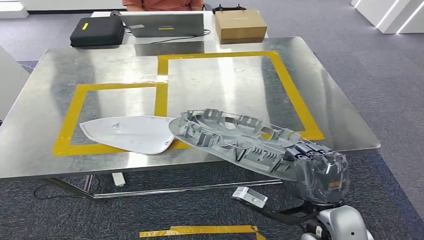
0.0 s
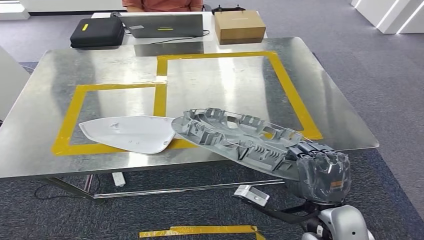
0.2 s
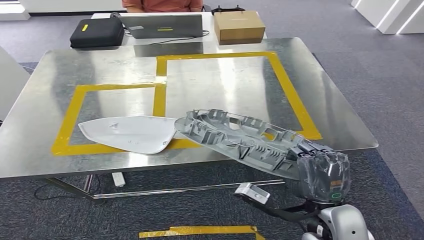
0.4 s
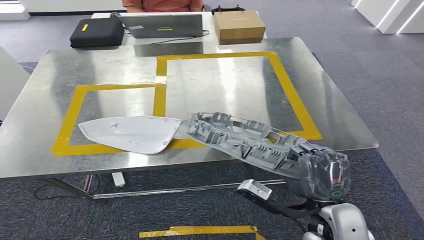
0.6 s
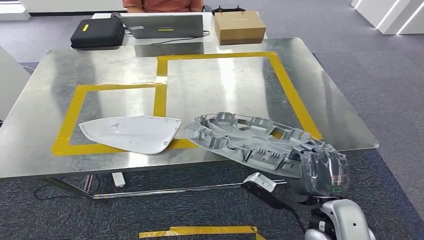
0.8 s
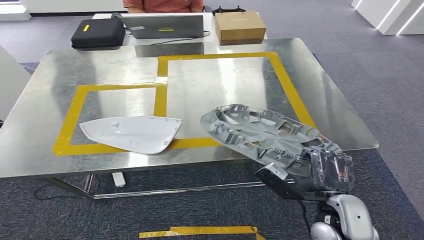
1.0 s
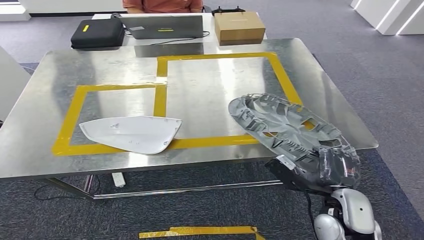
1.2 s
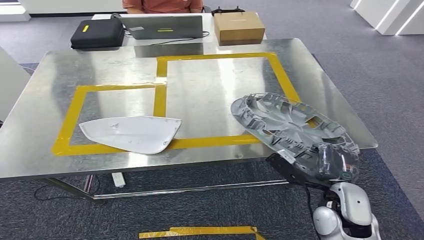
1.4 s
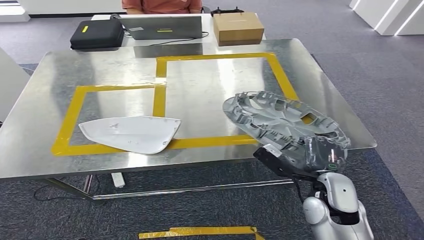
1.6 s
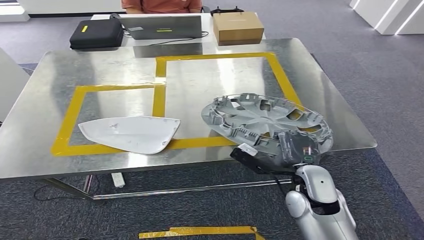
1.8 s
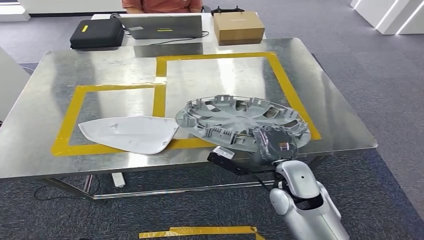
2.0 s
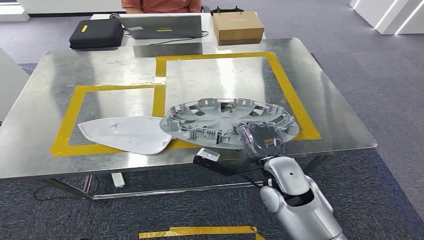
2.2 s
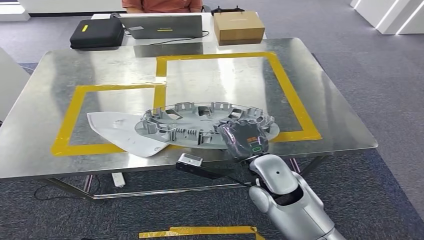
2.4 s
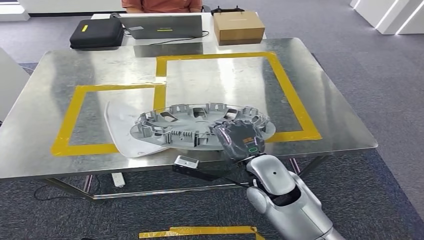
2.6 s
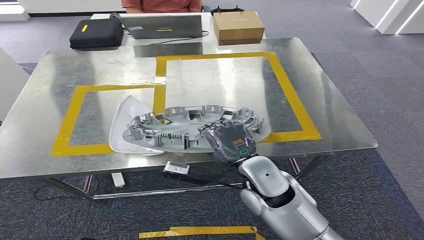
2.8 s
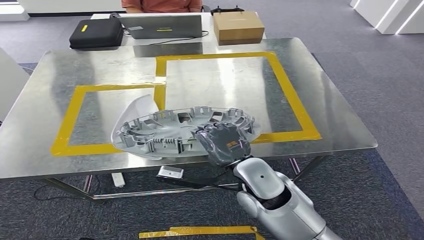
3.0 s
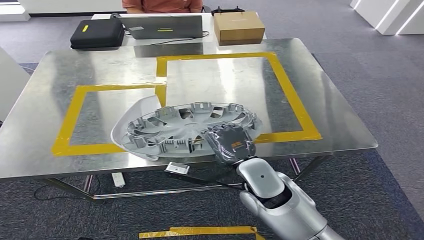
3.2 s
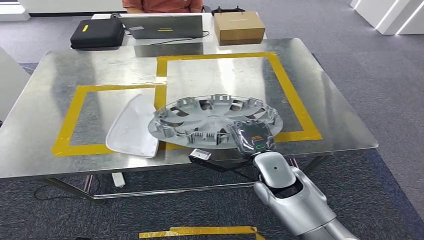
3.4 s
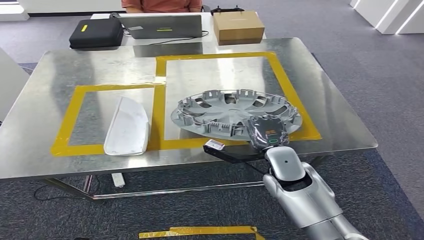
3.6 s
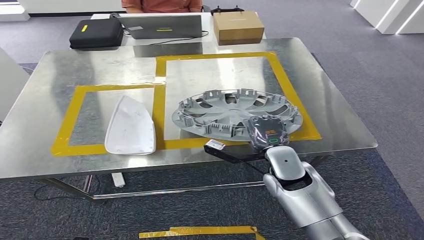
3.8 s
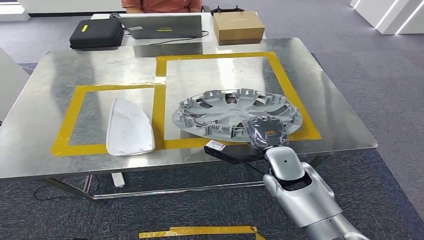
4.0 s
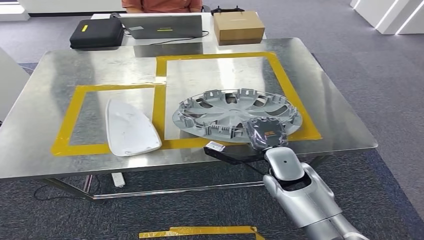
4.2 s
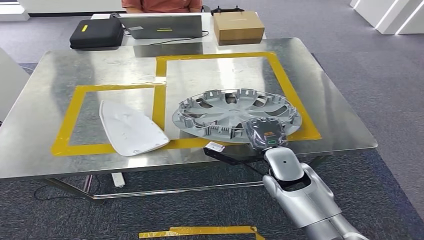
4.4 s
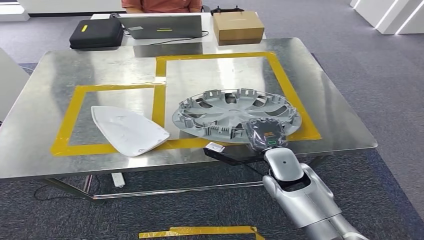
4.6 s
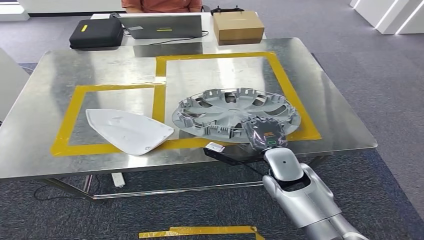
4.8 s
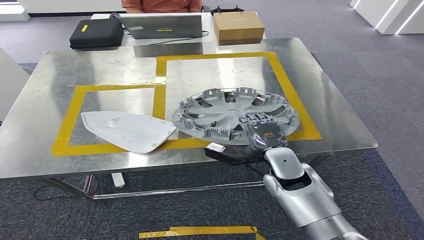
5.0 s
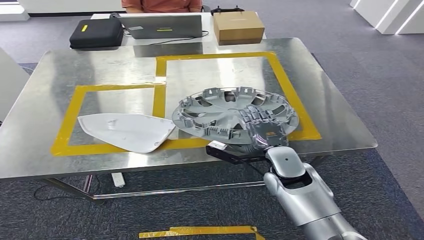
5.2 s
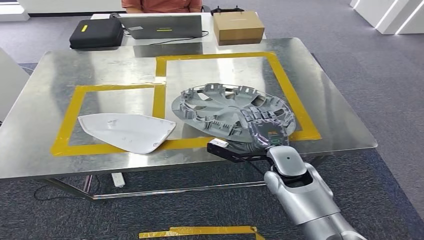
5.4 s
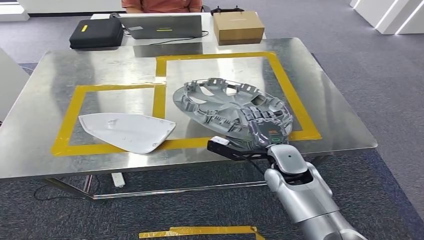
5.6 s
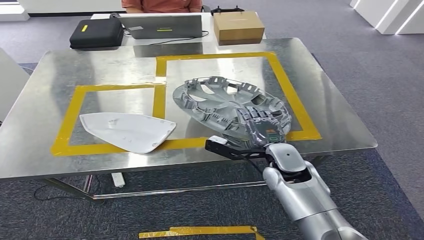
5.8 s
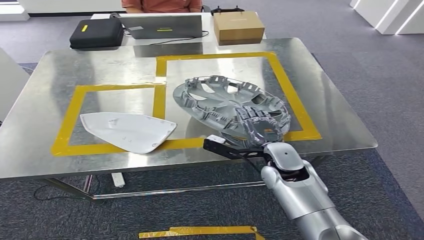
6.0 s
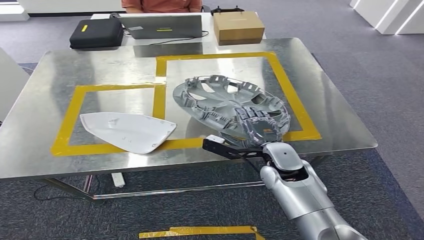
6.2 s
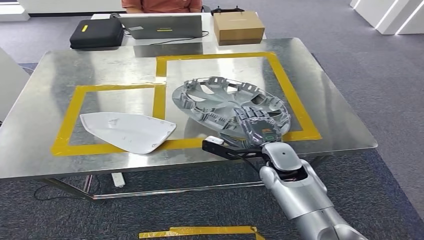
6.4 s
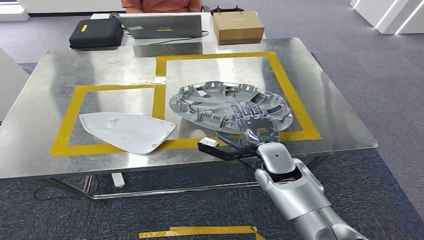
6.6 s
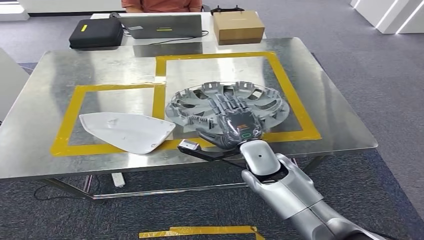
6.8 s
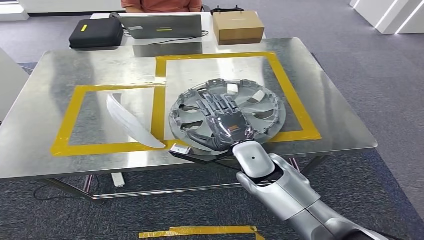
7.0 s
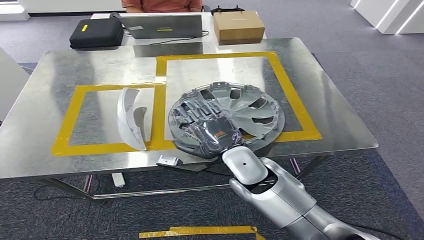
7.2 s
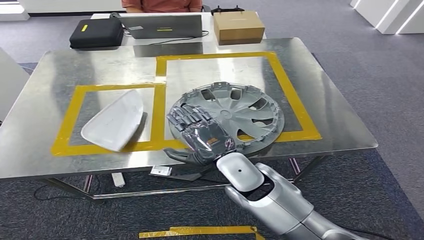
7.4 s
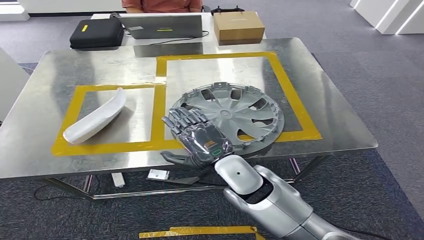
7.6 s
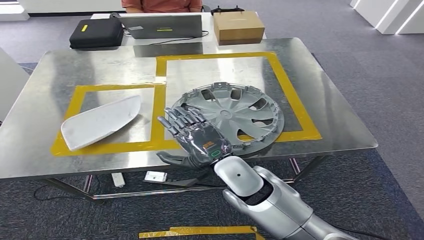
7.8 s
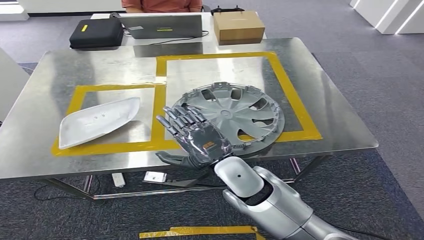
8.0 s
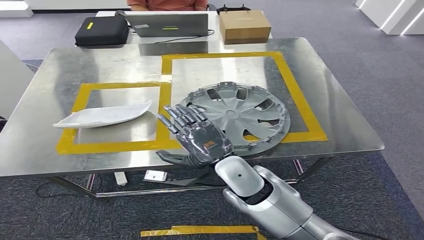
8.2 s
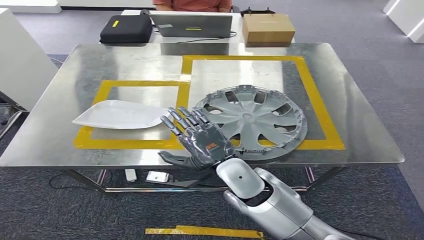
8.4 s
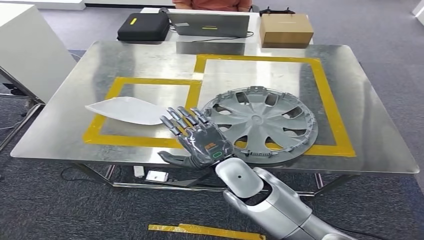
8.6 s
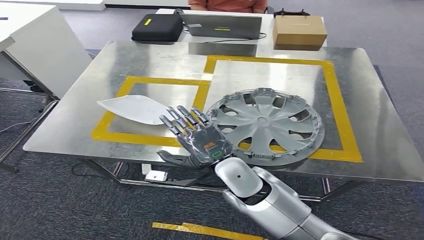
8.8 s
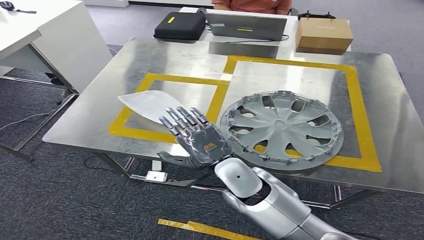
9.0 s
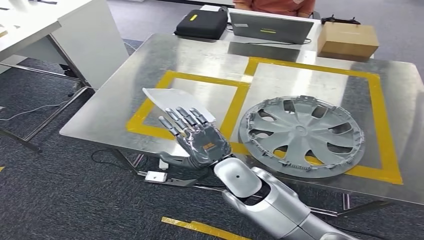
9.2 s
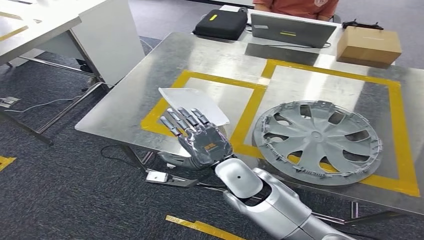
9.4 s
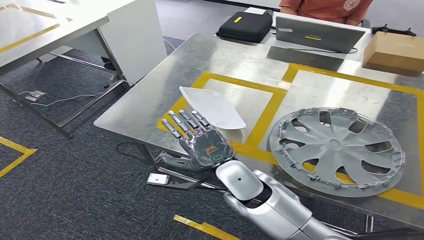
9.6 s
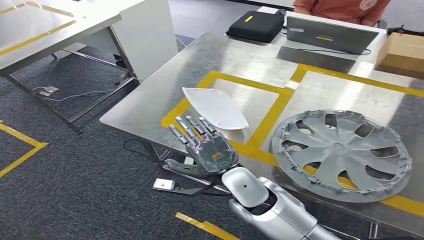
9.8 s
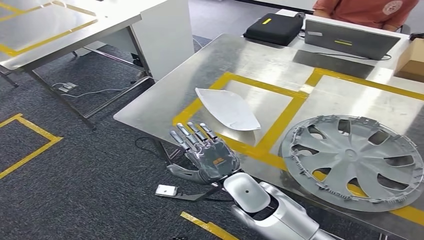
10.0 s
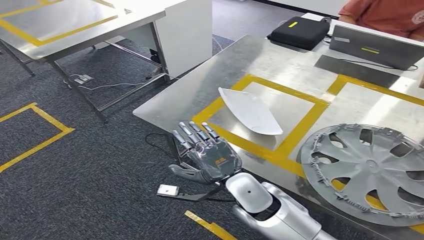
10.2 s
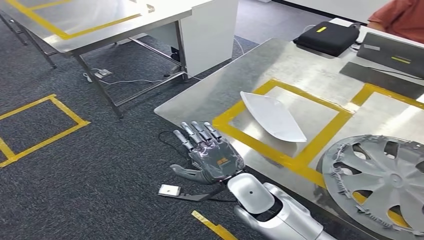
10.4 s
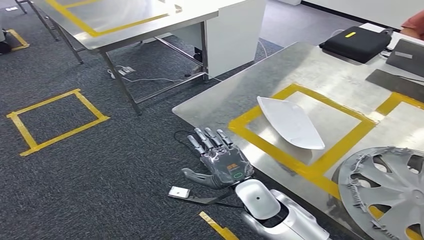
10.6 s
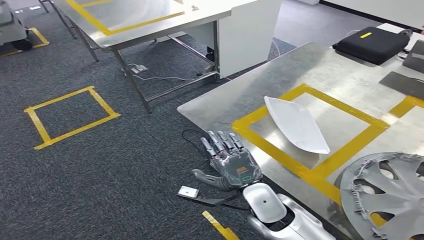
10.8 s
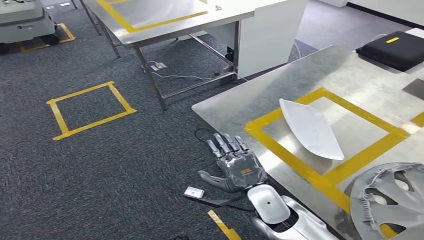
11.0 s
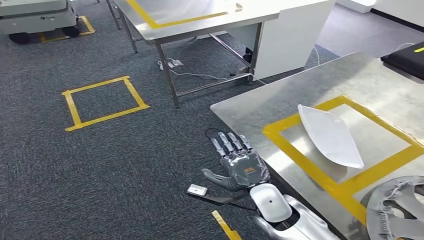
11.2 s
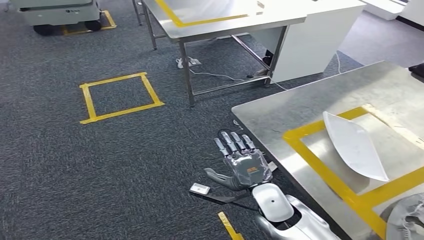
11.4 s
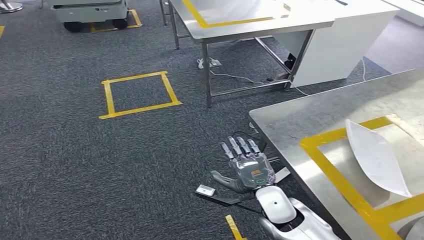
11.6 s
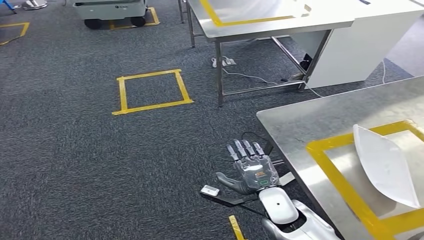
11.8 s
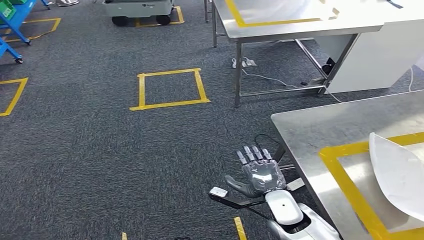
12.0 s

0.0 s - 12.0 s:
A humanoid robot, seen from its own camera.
Step, 0.0 s - 8.0 s: Insert the small parts into the corresponding holes on the workbench.
0.0 s - 1.6 s: The right hand is displaced forward by about 5 cm.
1.6 s - 3.0 s: The right hand is displaced to the left by approximately 15 cm.
3.0 s - 4.4 s: The right hand travels to the right and forward by about 10 cm.
4.4 s - 6.0 s: The hands make only small movements.
6.0 s - 7.6 s: The right hand moves to the left and backward, some 10 cm.

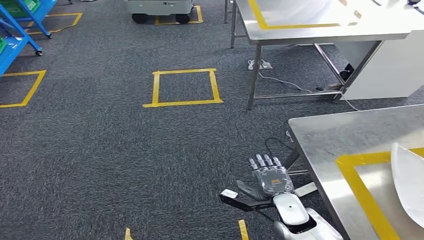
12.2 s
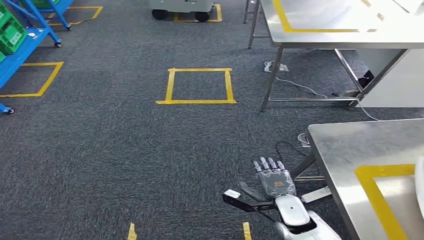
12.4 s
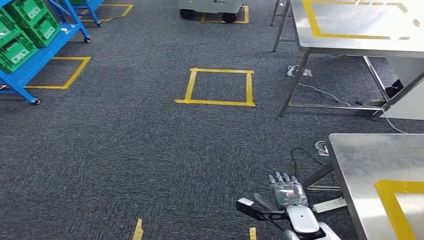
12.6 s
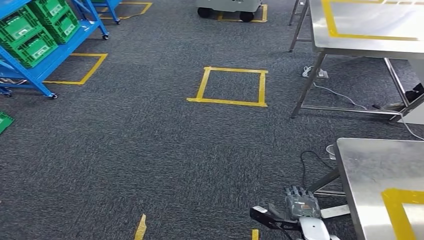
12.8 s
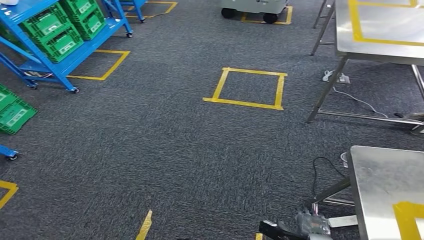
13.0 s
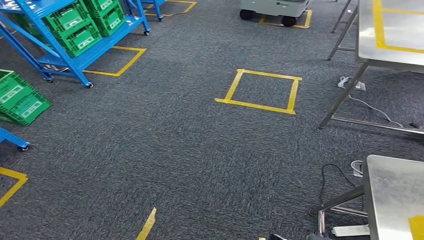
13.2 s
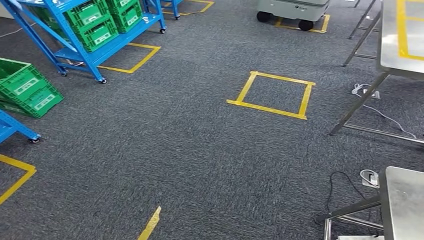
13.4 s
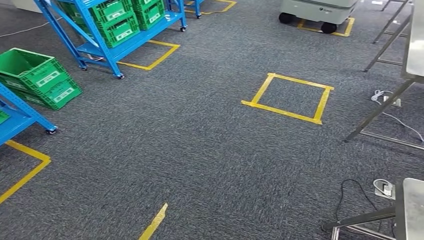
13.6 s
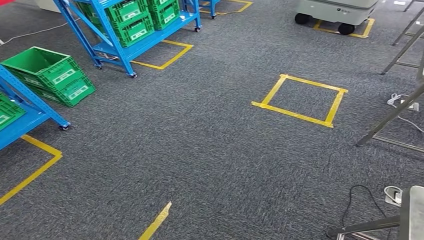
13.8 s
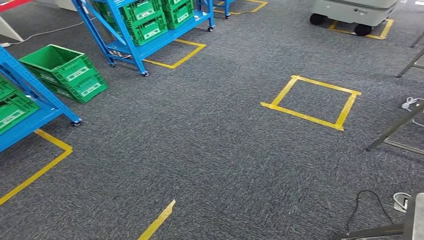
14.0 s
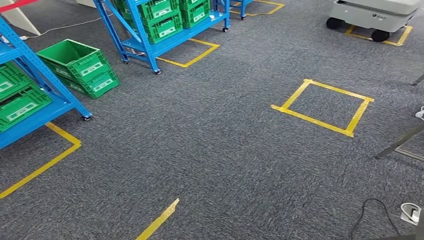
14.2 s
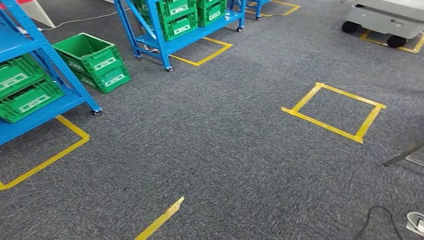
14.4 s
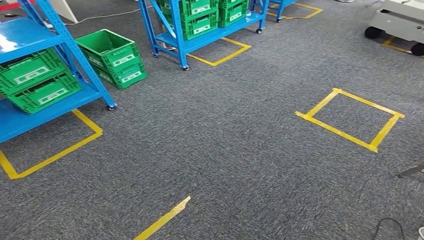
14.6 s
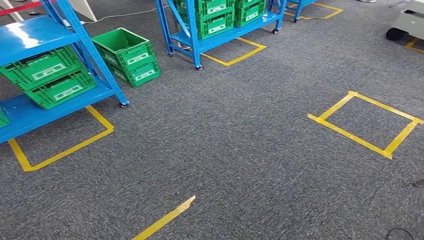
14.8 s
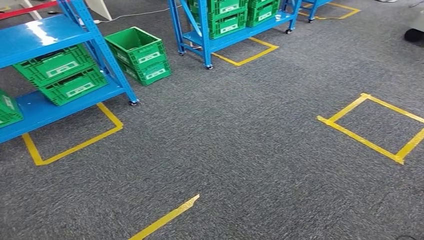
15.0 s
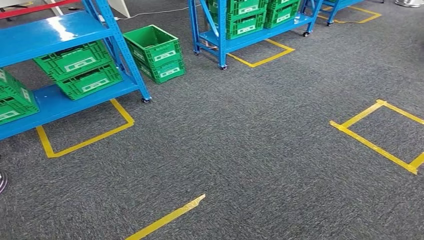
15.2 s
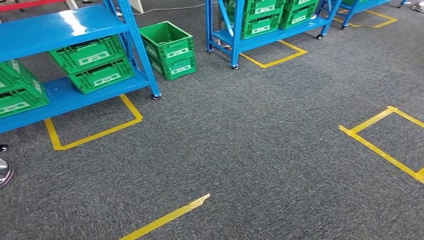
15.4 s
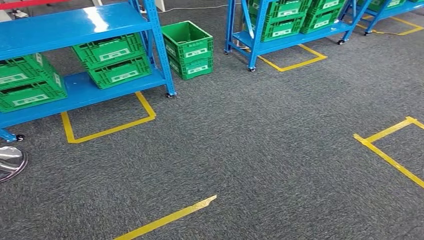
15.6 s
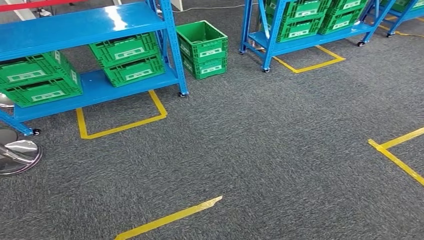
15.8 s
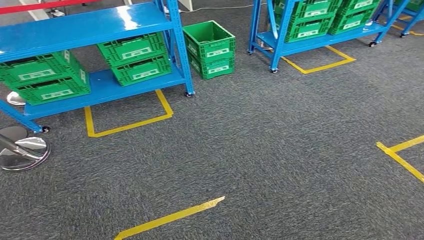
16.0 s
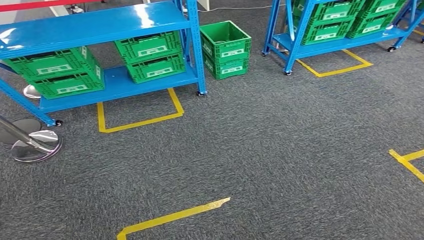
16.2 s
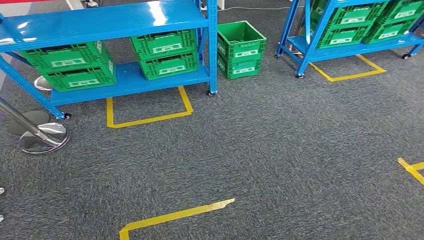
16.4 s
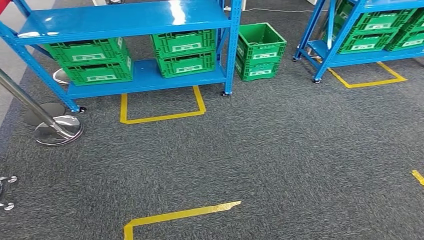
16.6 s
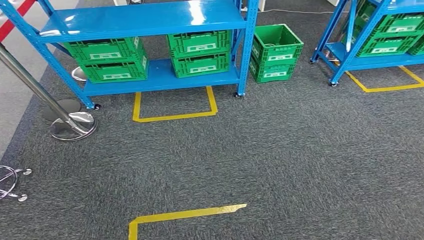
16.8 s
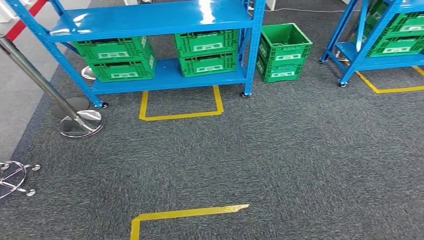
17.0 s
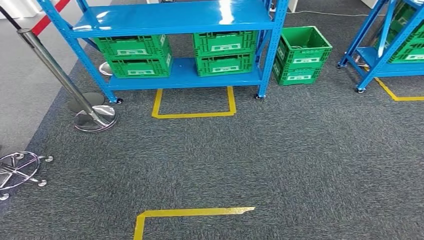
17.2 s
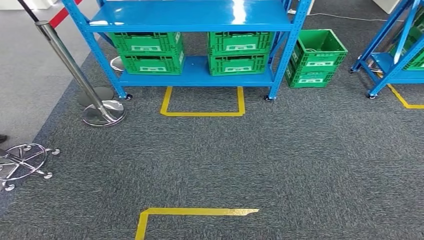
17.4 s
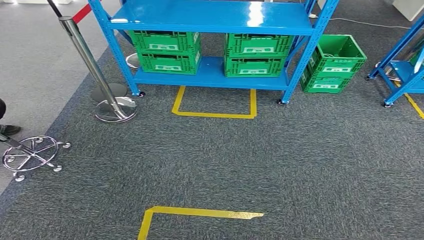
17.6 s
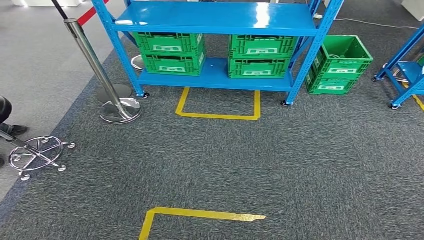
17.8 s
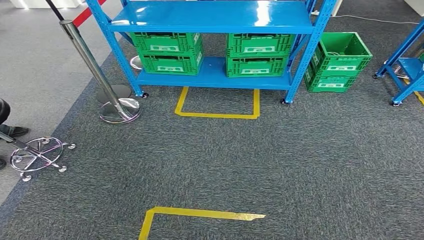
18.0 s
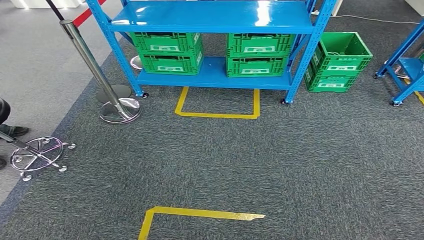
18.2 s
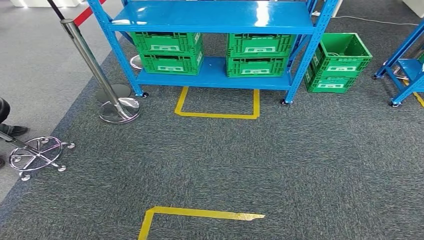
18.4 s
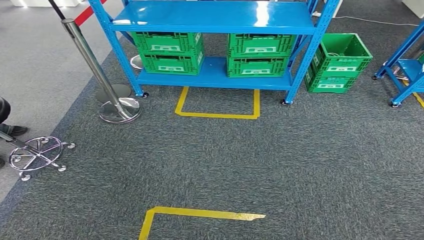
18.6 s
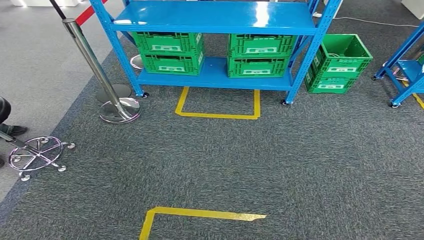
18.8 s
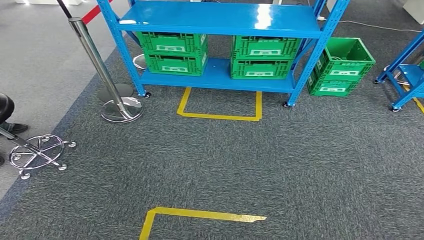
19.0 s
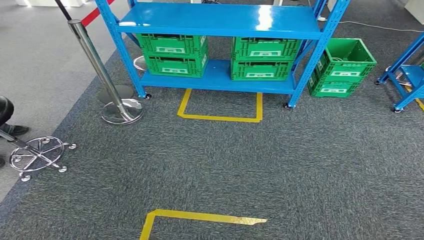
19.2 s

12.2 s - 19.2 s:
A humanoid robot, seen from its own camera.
17.8 s - 19.2 s: The hands make only small movements.
